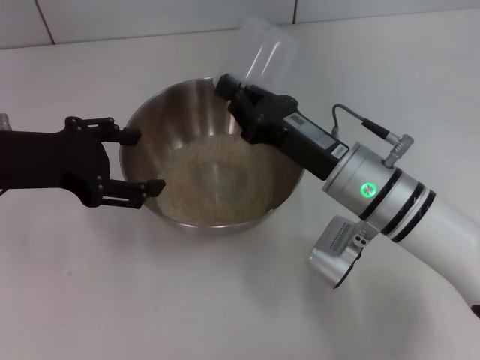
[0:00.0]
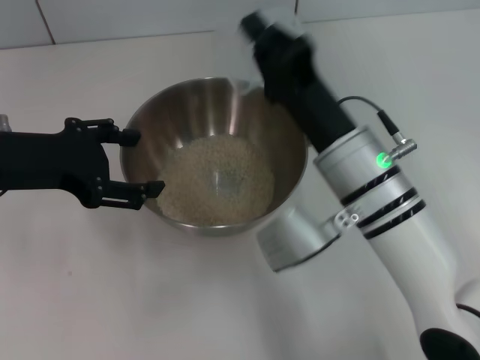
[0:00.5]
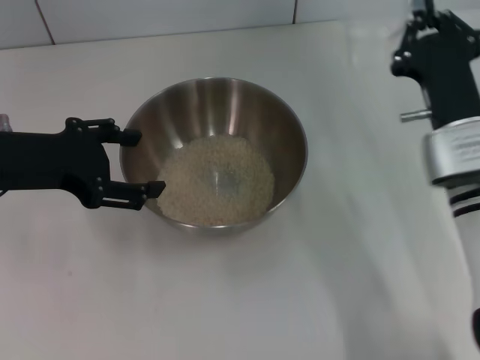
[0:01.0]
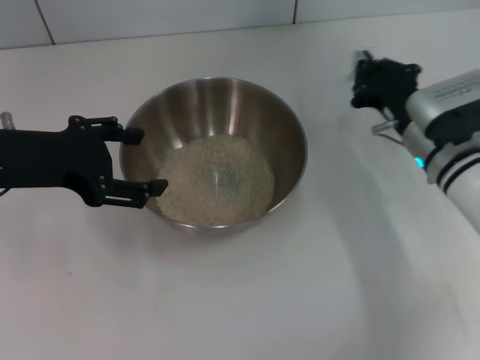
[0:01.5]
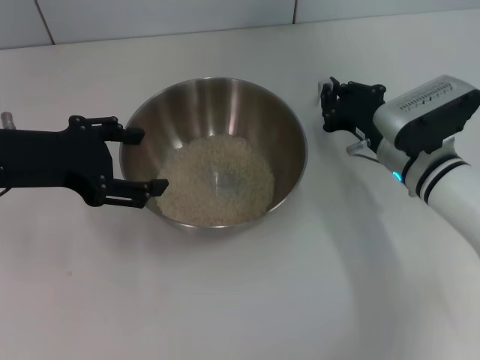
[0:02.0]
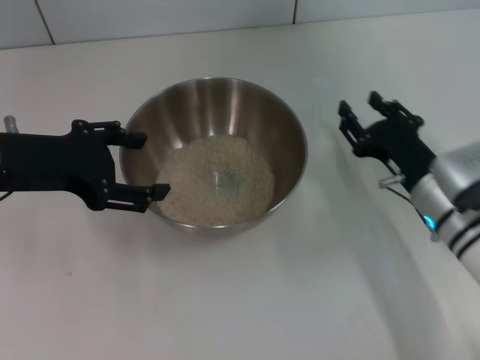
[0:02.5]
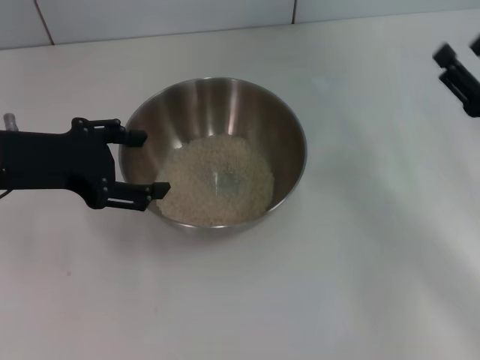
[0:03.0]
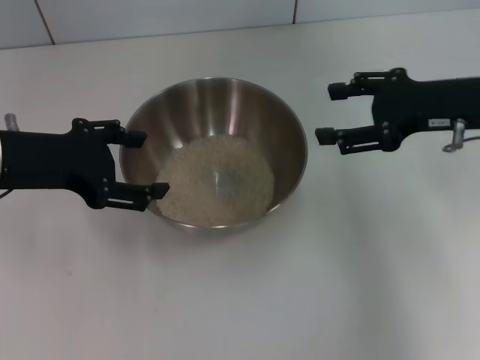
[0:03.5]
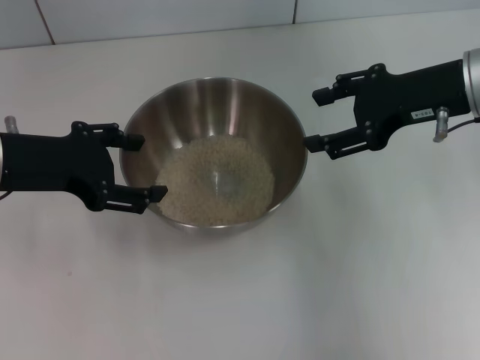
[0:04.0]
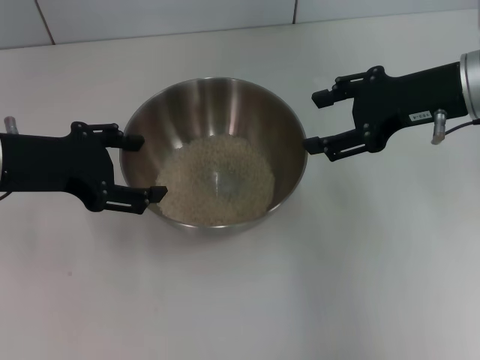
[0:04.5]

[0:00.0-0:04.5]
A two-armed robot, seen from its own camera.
Task of the whole recording: Place the bowl in the middle of the table with one hand and pour the rice from the grain cup into it with the other hand.
Step, 0:01.0 to 0:02.5: Place the cup on the table with the right gripper.
0:00.0 to 0:02.0: The right gripper heads to the right, covering roughly 5 cm.
0:02.0 to 0:04.5: The right gripper moves upward, some 15 cm, and opens up.

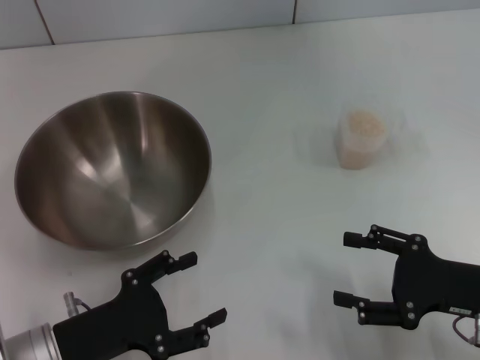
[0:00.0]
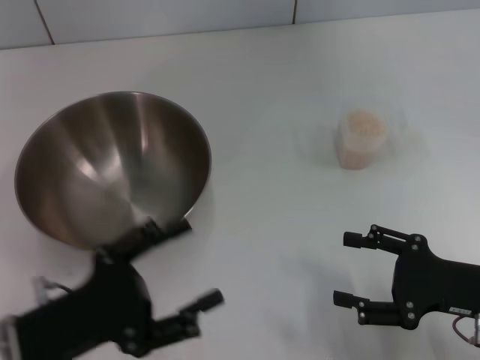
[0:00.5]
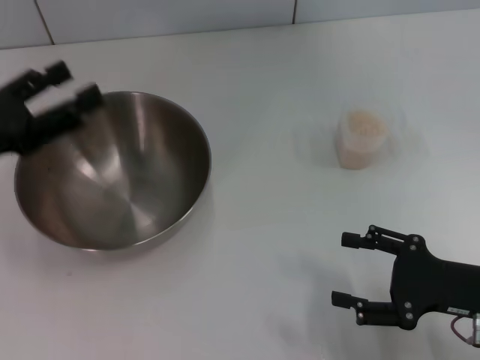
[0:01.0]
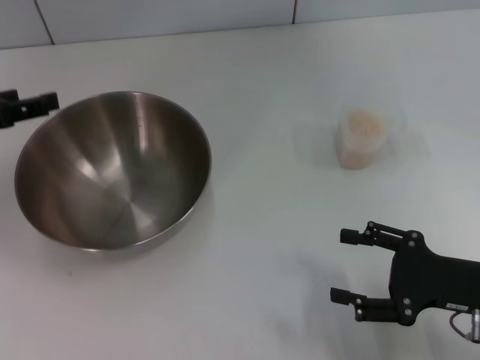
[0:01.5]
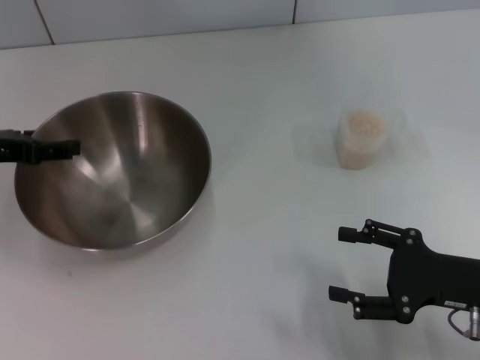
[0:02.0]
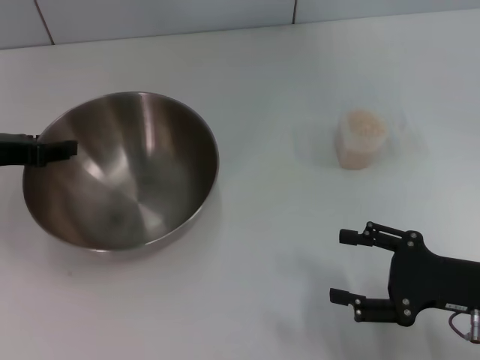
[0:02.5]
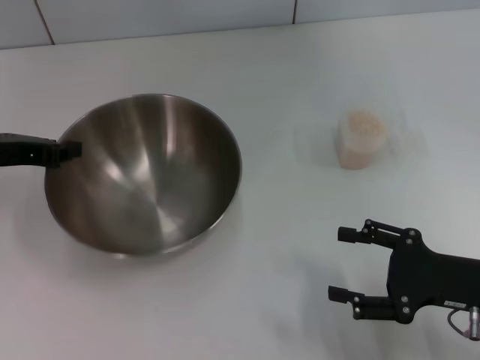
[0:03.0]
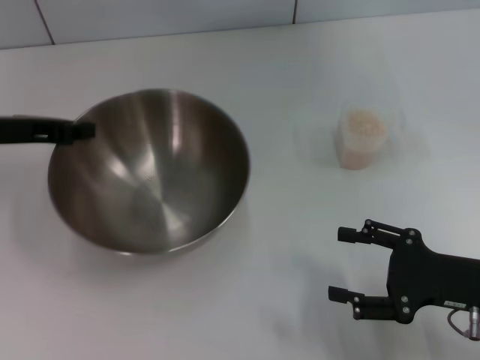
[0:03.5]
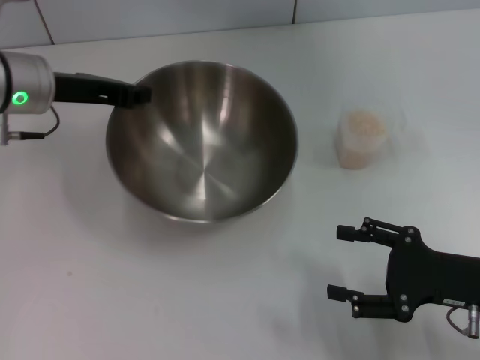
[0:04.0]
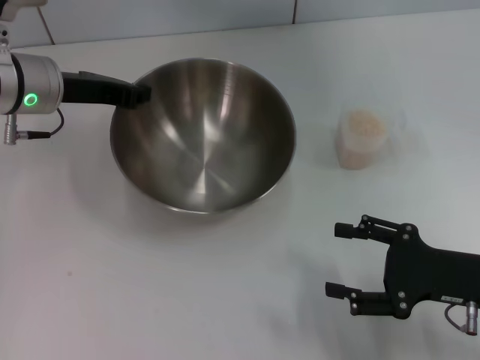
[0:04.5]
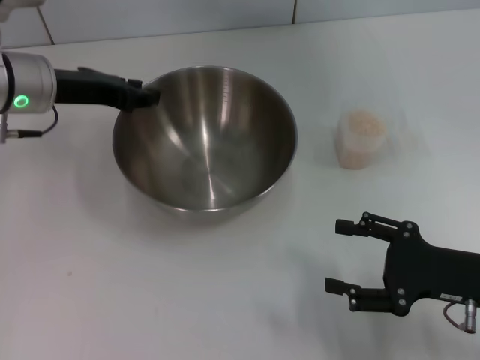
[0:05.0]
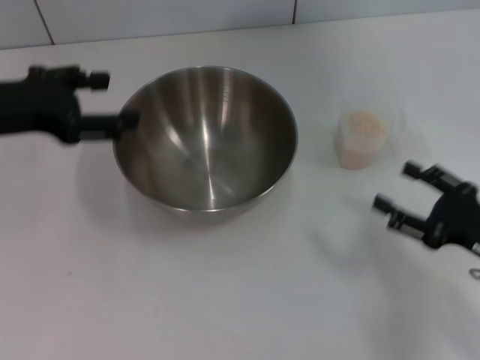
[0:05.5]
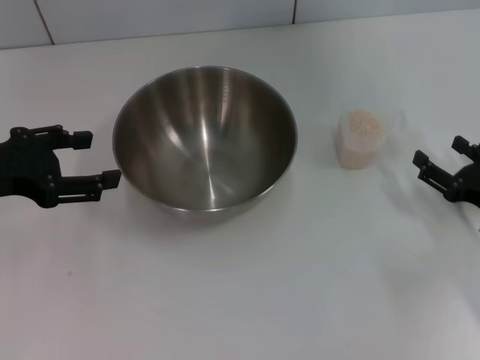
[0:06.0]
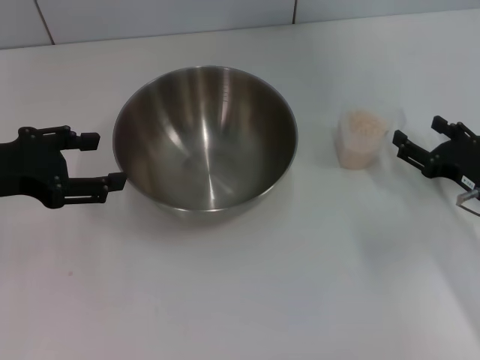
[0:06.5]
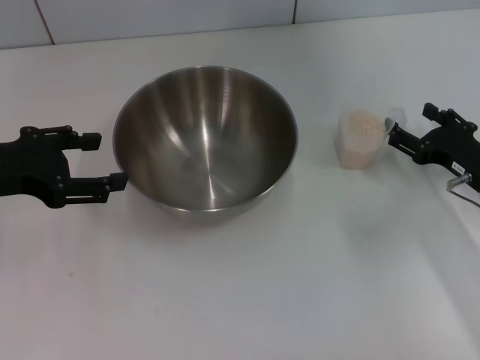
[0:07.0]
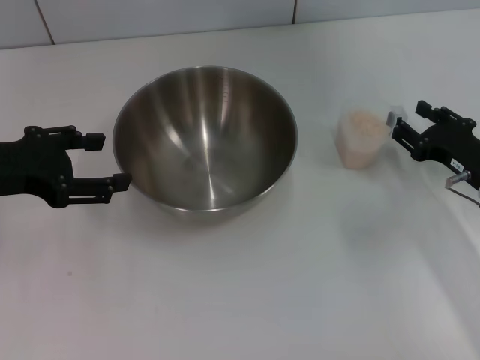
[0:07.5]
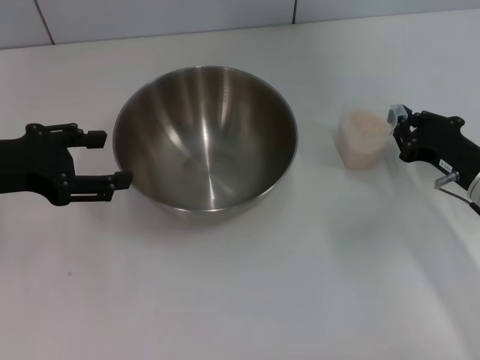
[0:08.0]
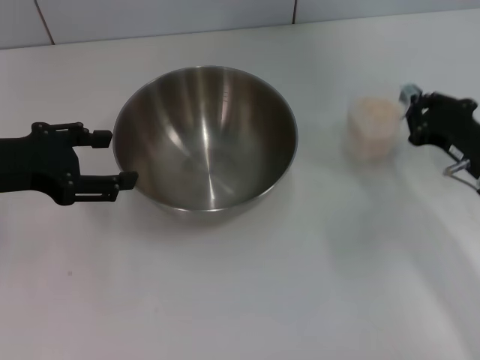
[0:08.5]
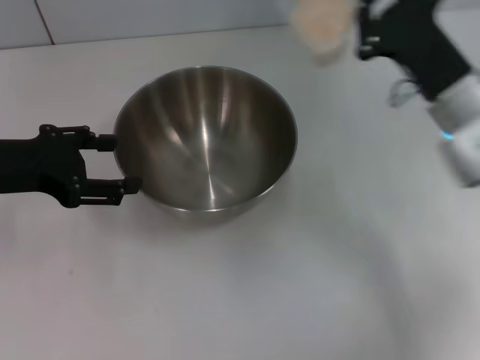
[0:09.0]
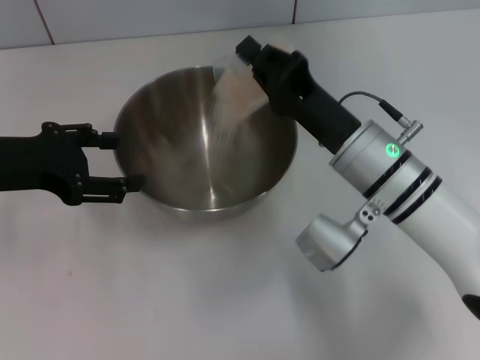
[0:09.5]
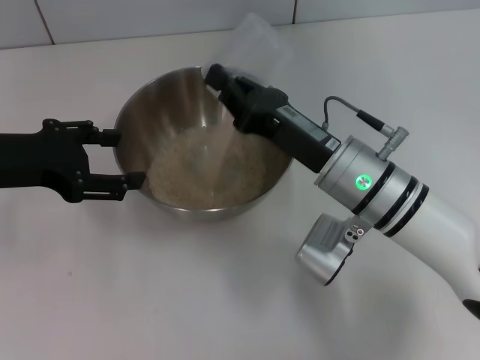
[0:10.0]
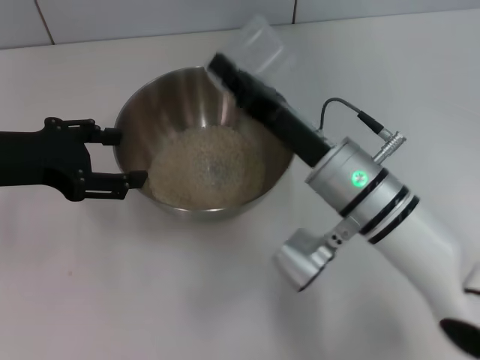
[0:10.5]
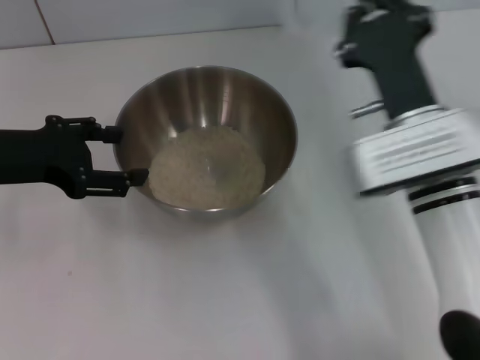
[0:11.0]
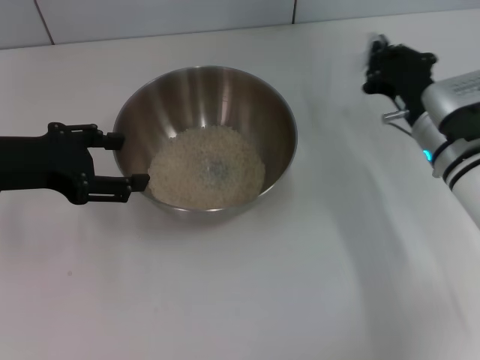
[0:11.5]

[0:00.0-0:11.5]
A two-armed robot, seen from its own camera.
Task of the whole recording: Place the bowl in the middle of the table with one hand and pour the rice from the grain cup into it with the other hand.
Step, 0:00.0 to 0:03.5: Pick up the bowl with the left gripper.
Step, 0:04.0 to 0:05.0: Place the bowl in the center of view with the left gripper.
Step, 0:05.5 to 0:08.5: Pick up the cup with rice in it with the right gripper.
Step, 0:09.0 to 0:11.0: Pour the rice from the cup into the bowl with the right gripper.
0:00.0 to 0:02.0: The left gripper moves forward, upward and to the left, approximately 20 cm.
0:02.0 to 0:04.0: The left gripper heads to the right and forward, covering approximately 10 cm, and closes up.
0:04.0 to 0:06.0: The left gripper heads backward and to the left, covering some 15 cm, and opens up, while the right gripper shifts about 5 cm to the right.
0:06.0 to 0:07.5: The right gripper heads forward, covering about 5 cm.
0:07.5 to 0:09.5: The right gripper is displaced to the left by approximately 15 cm, and closes up.
0:09.5 to 0:11.5: The right gripper heads to the right, covering about 10 cm.

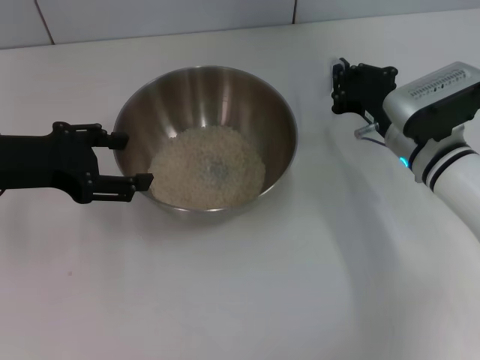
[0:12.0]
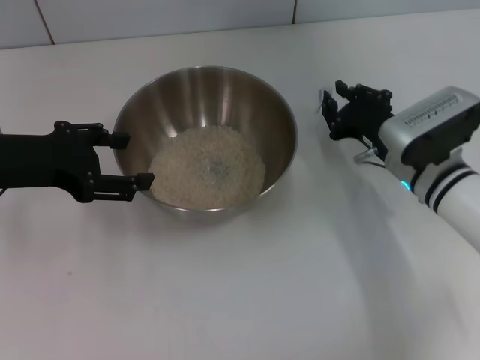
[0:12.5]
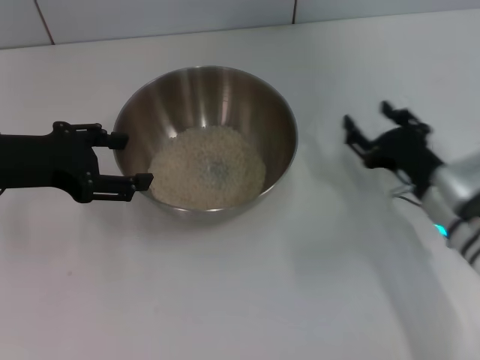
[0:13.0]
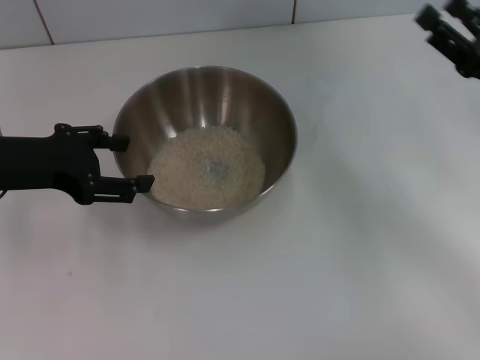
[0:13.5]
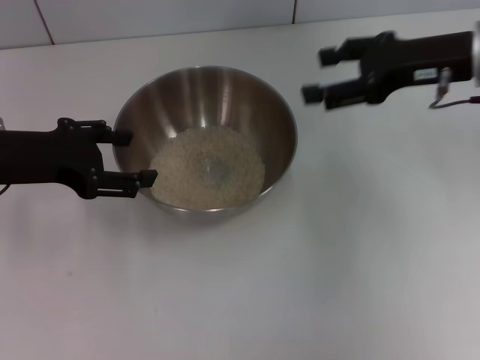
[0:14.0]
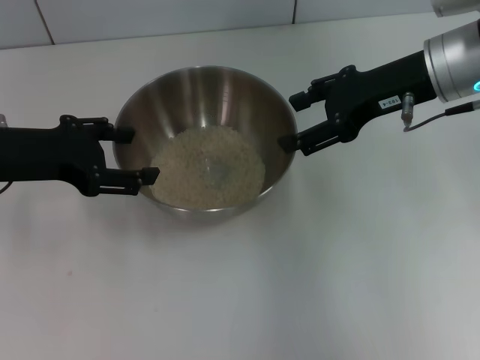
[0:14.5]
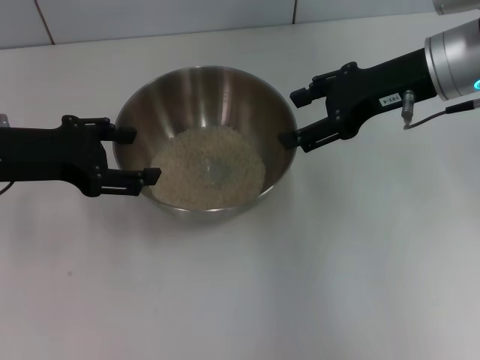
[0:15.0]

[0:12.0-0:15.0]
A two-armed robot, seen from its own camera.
Task of the whole recording: Place the bowl in the middle of the table with one hand and pour the rice from the grain cup into it with the other hand.
0:12.0 to 0:13.5: The right gripper travels to the right, upward and backward by roughly 15 cm, and opens its fingers.
0:13.5 to 0:15.0: The right gripper moves to the left, upward and forward, roughly 15 cm.
